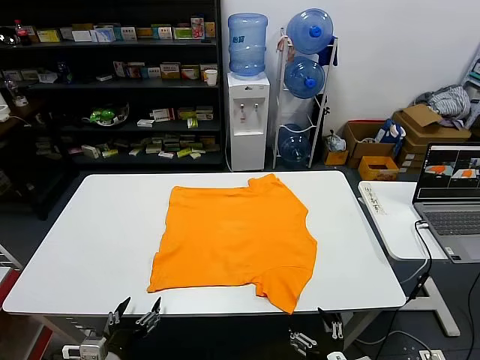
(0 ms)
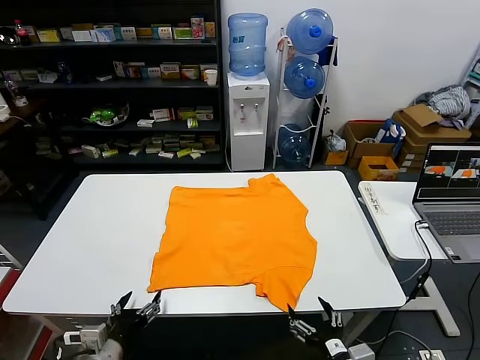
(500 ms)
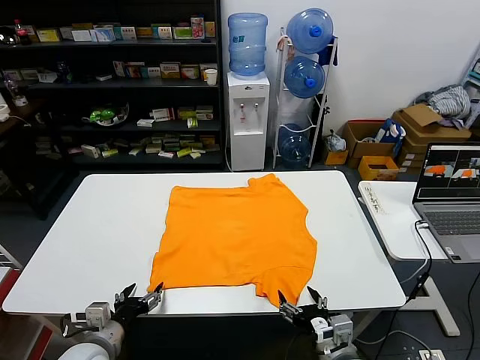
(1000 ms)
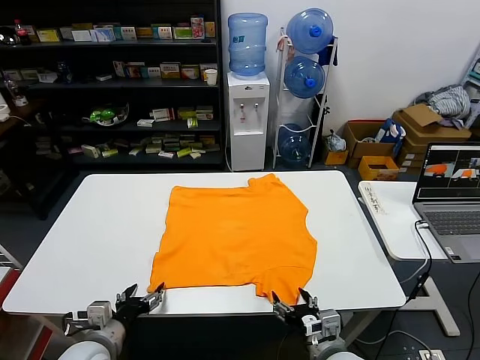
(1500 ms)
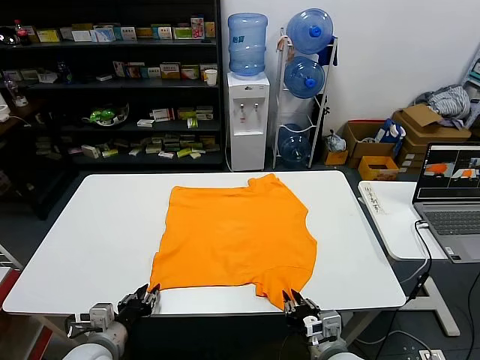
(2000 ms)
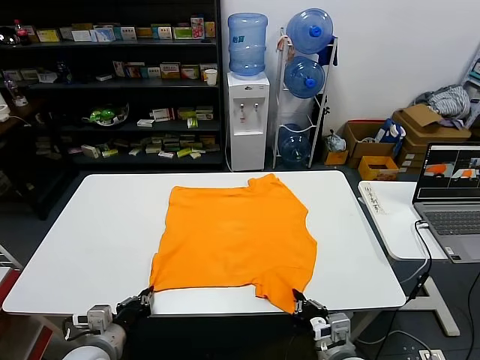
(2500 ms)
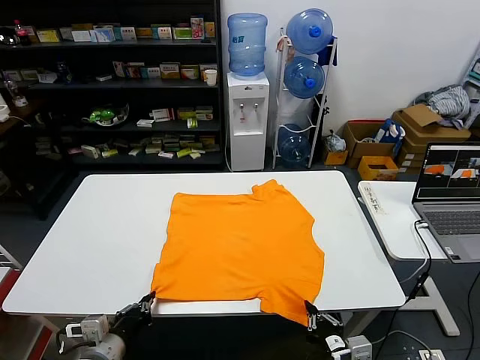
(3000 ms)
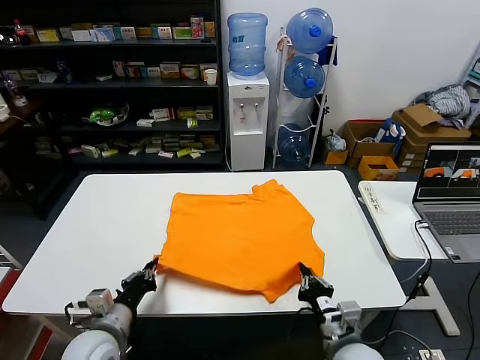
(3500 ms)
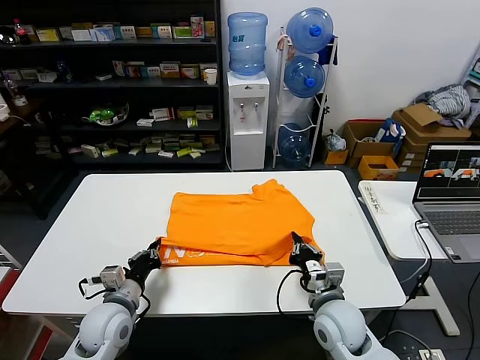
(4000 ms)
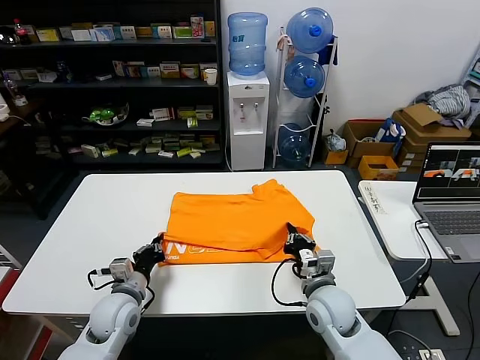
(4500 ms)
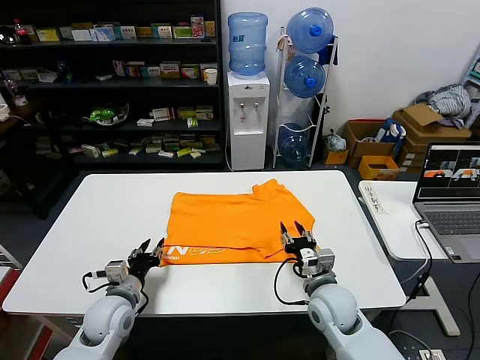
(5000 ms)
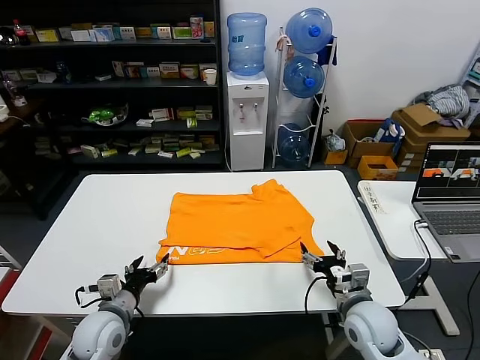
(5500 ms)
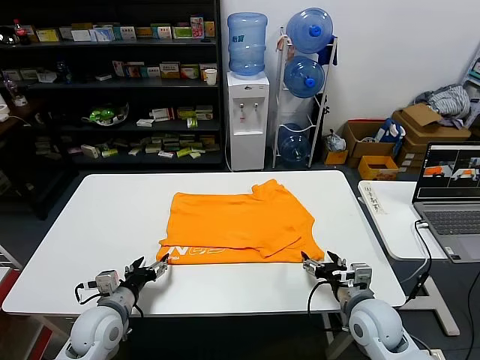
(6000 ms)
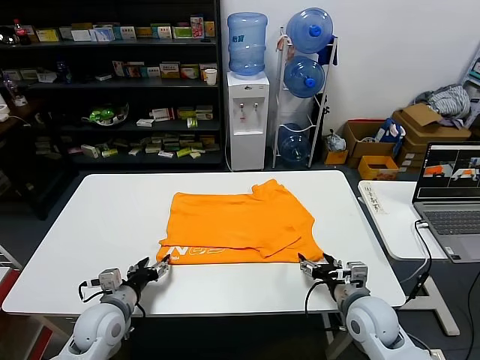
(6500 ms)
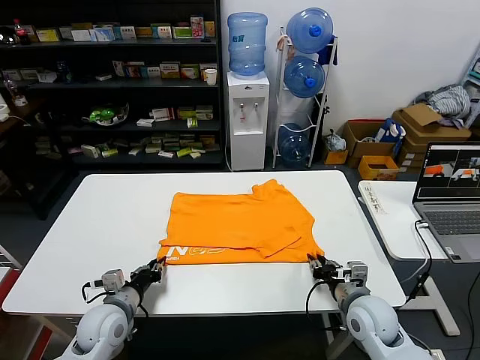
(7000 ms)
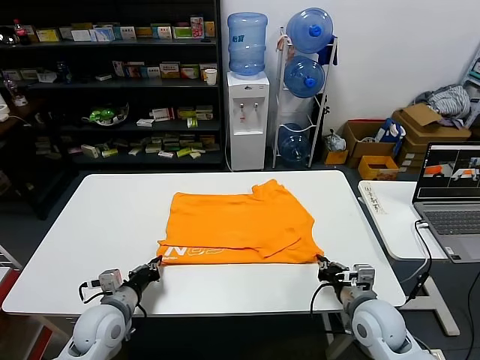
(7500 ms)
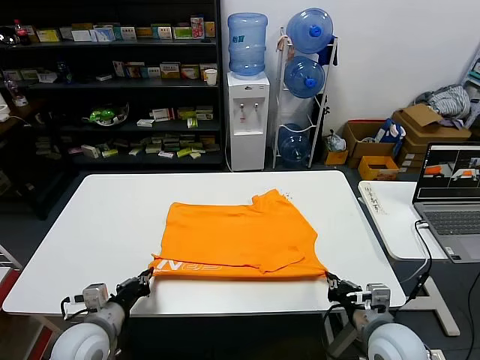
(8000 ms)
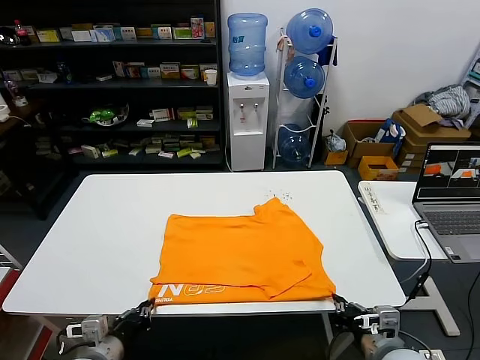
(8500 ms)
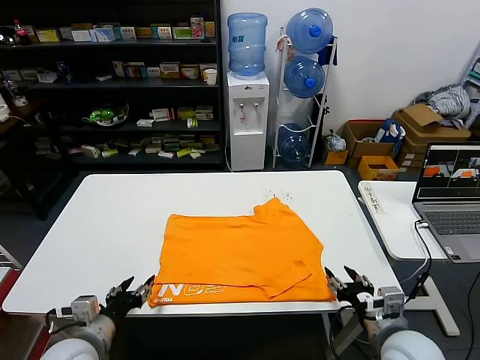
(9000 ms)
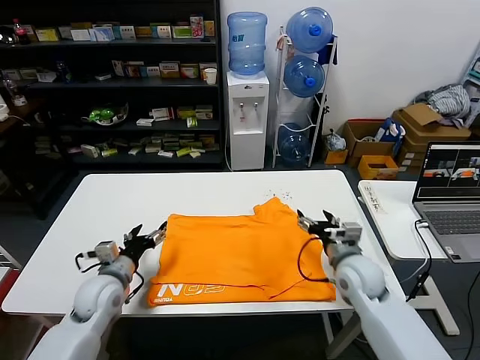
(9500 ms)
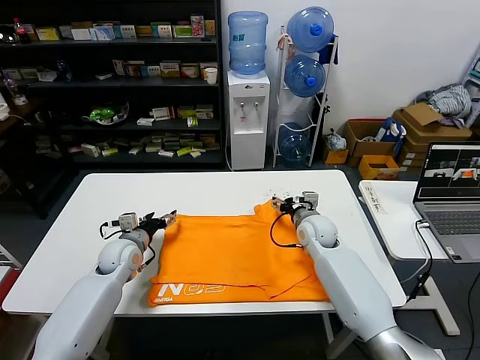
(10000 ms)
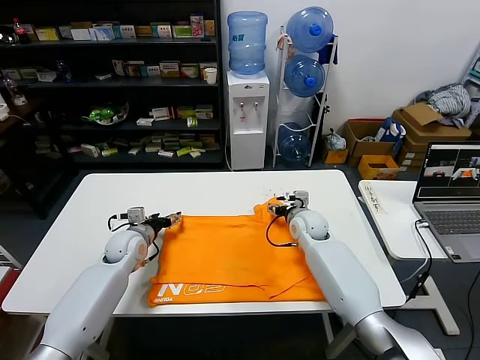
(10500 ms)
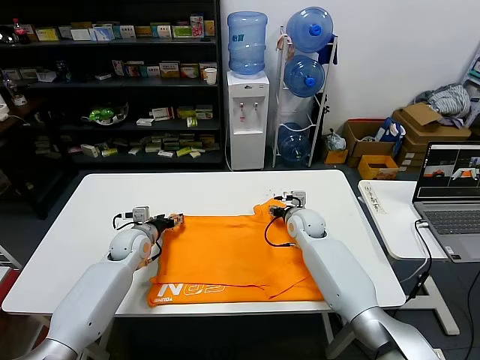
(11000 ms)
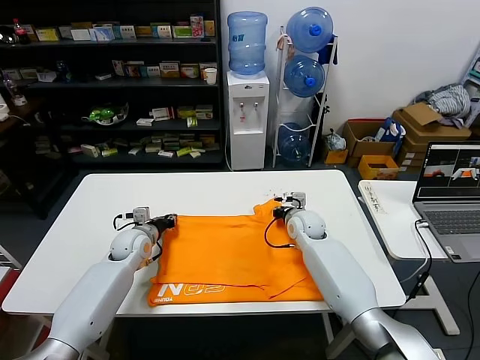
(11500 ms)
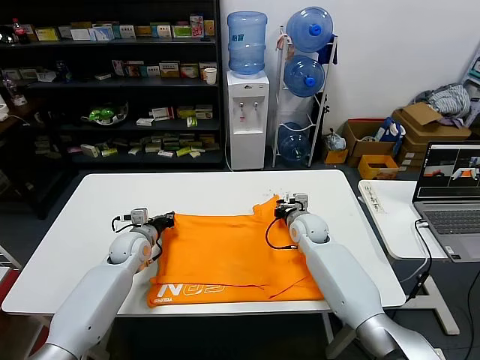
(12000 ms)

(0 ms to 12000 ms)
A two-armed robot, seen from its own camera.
Task of the whole recording: fold and organize the clothes.
Step, 0 ms - 2500 ms: use both grippers simultaneously to clamp the lower edge of the clothing fabric.
Step, 3000 ms - 4500 ms: use both grippers to drag the lower edge of the fabric forward and fold it over the upper edge.
Step, 5000 ms - 8500 ms: Drag the clothes downward with both gripper.
Step, 9000 ms - 11500 ms: use both grippers simultaneously to clamp the upper edge of the clothing fabric.
2000 ms - 4000 ms: The two grippers go approximately 10 cm forward. The left gripper closes up.
4000 ms - 6000 ms: The right gripper goes some 10 cm to the right, and opens up. The left gripper opens its fingers.
6000 ms - 8000 ms: The left gripper closes its fingers. Meanwhile the right gripper moves backward, some 5 cm, and closes.
8000 ms - 10000 ms: Both grippers move forward, some 25 cm. The left gripper opens its fingers. Meanwhile the right gripper opens up.
10000 ms - 12000 ms: The left gripper closes up; the right gripper closes.

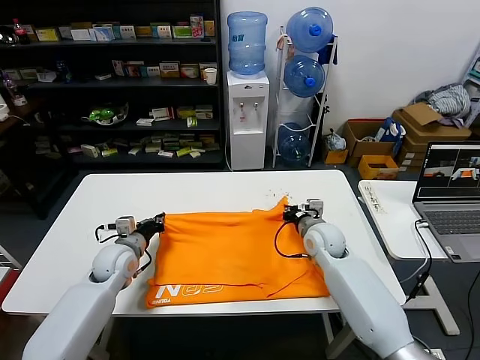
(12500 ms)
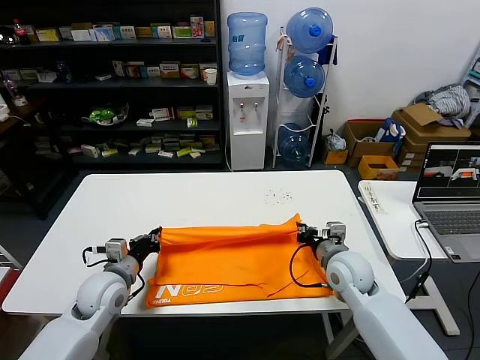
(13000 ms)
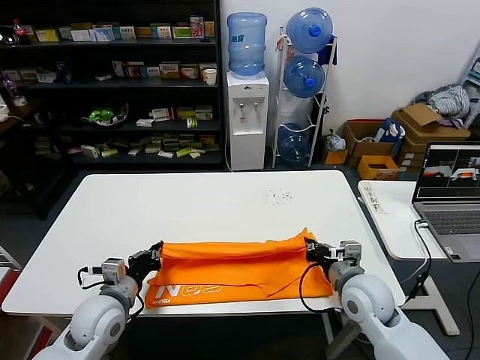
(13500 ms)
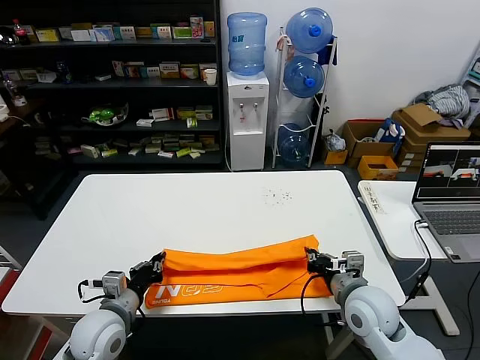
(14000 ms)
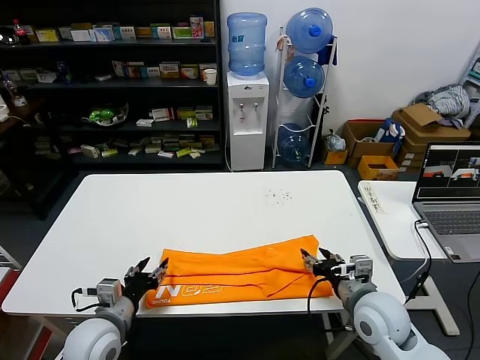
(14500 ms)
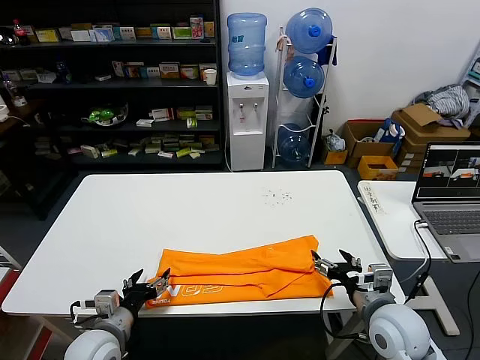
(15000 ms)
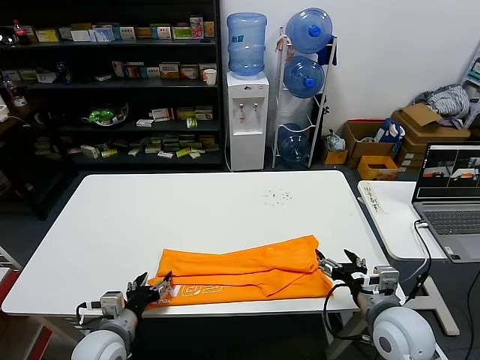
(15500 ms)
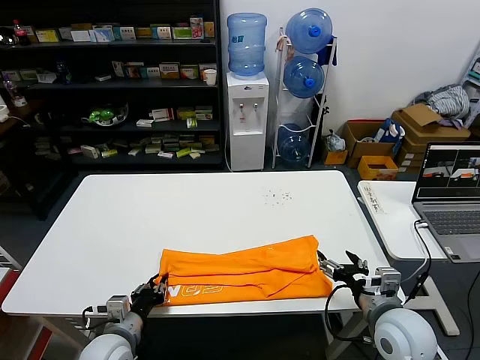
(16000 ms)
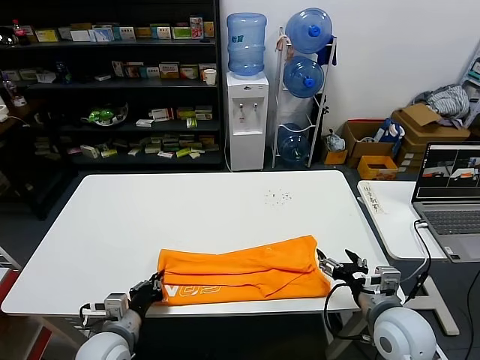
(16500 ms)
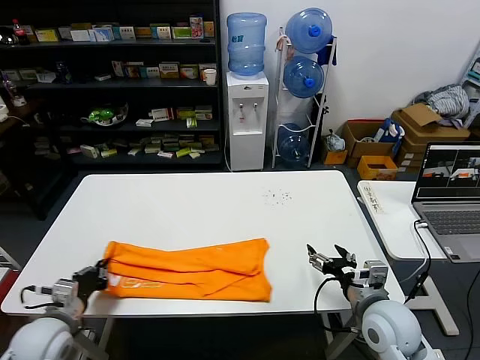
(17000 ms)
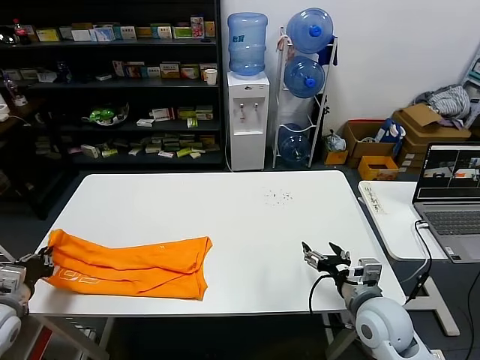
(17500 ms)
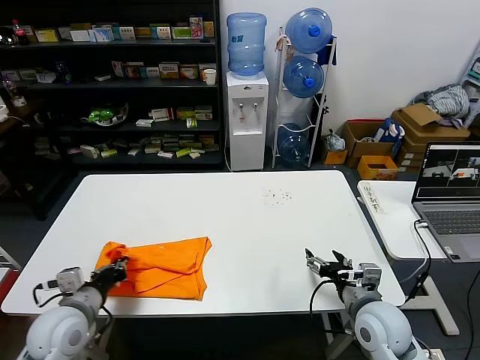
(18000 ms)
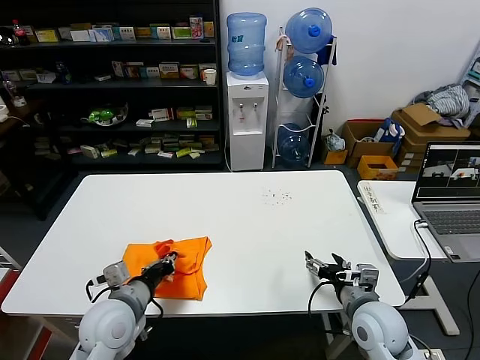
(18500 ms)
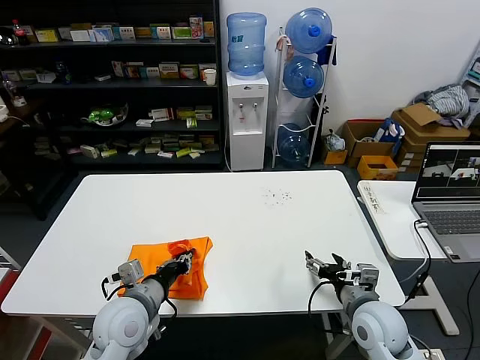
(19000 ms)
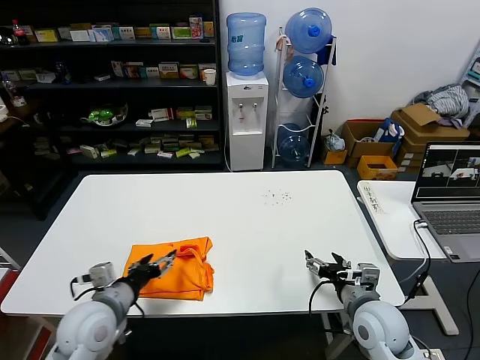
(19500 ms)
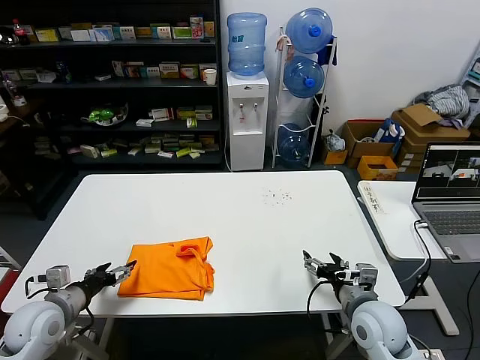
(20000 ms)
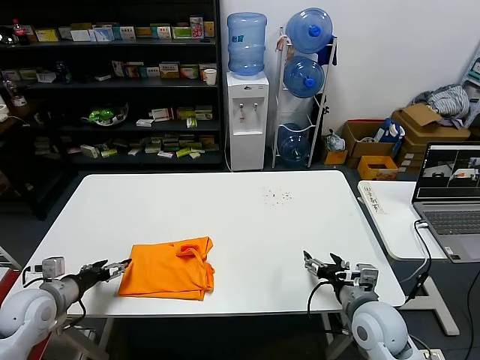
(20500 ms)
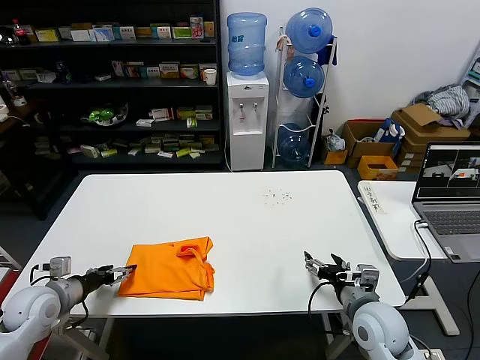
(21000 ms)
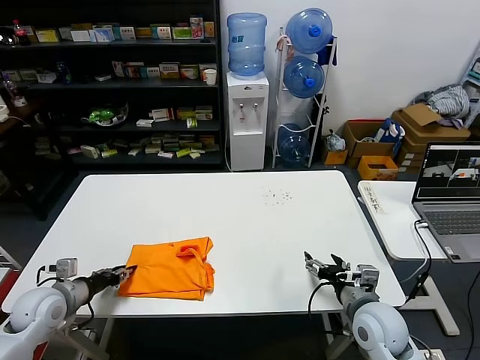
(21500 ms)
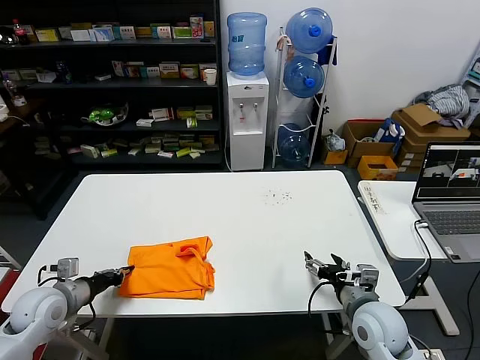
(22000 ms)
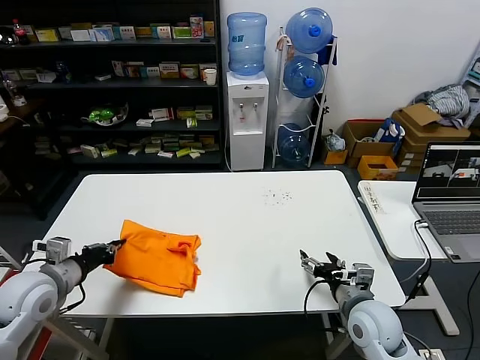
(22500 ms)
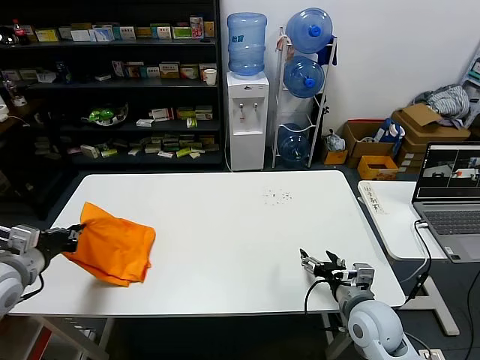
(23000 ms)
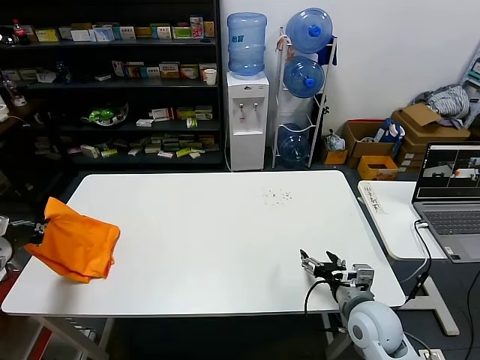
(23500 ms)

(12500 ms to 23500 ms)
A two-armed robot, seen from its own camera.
Task of the whole recording: fold and organize the clothes.
Step, 12500 ms - 14000 ms: use both grippers to drag the upper edge of the fabric backward and fold it over the lower edge.
Step, 14500 ms - 16000 ms: use the left gripper to clamp the left edge of the fabric.
Step, 16500 ms - 19000 ms: use the left gripper to drag the left edge of the fabric to the left and folds it over the right edge.
12500 ms - 14500 ms: Both grippers travel together backward, some 20 cm. The right gripper opens its fingers, while the left gripper opens its fingers.
14500 ms - 16000 ms: The left gripper travels downward by about 5 cm, and opens, then closes again.
16000 ms - 18000 ms: The left gripper goes about 10 cm upward and to the left, and closes.
18000 ms - 20000 ms: The left gripper moves roughly 15 cm to the right and comes back, and opens up.
20000 ms - 21500 ms: The left gripper moves about 5 cm, and closes.
21500 ms - 23500 ms: The left gripper travels upward and to the left by some 15 cm, and closes.

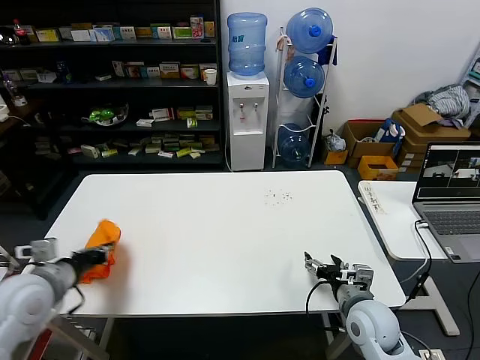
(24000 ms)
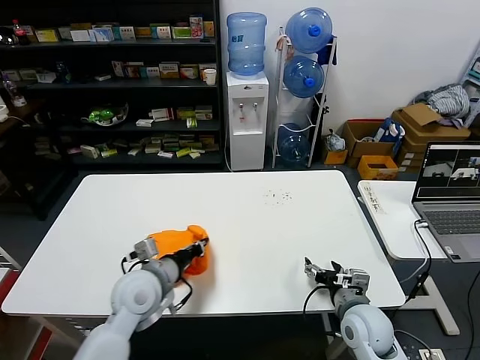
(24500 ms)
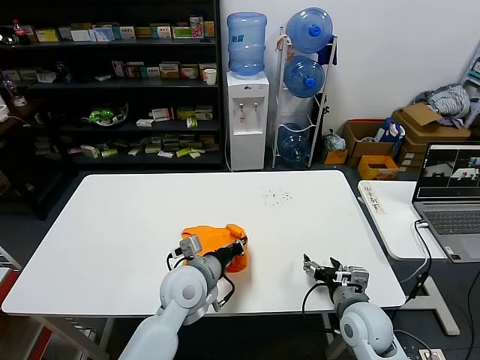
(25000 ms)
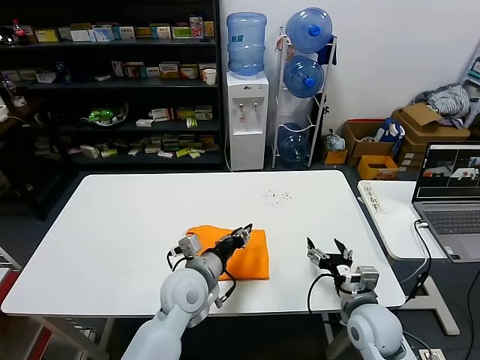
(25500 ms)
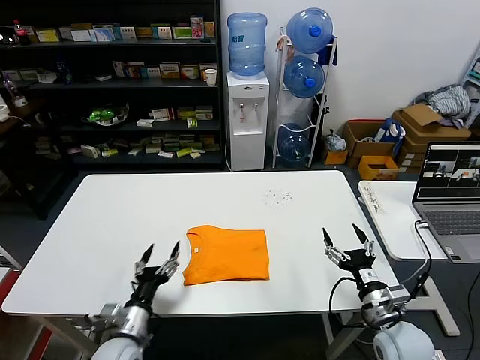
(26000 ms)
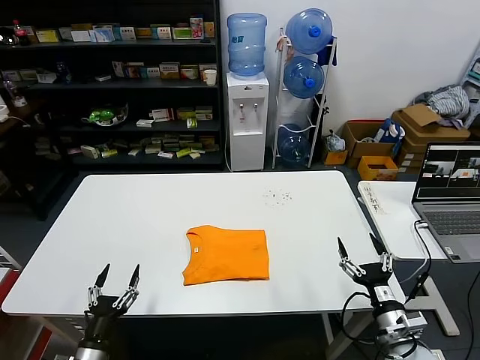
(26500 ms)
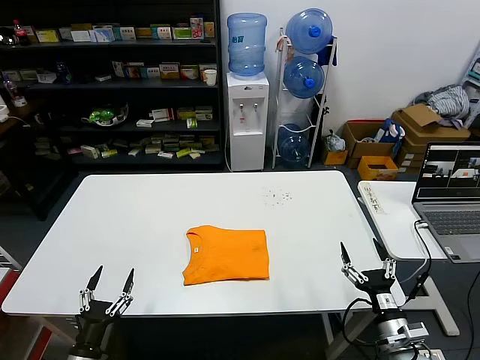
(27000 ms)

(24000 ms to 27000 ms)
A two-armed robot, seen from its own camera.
Task of the whole recording: fold and organize the clothes.
24000 ms - 25500 ms: The left gripper is displaced to the right by approximately 30 cm, and opens up.
25500 ms - 27000 ms: The left gripper goes roughly 35 cm to the left, backward and downward, and opens its fingers; the right gripper is displaced backward and to the right by approximately 10 cm.
